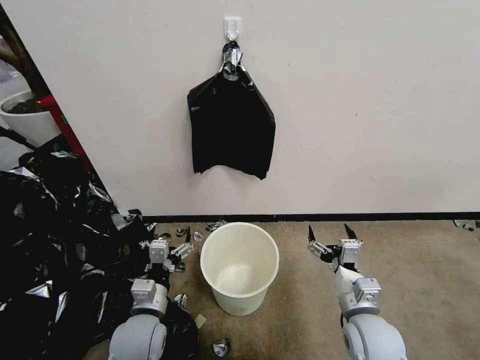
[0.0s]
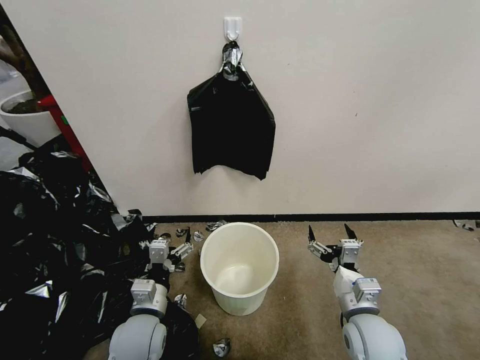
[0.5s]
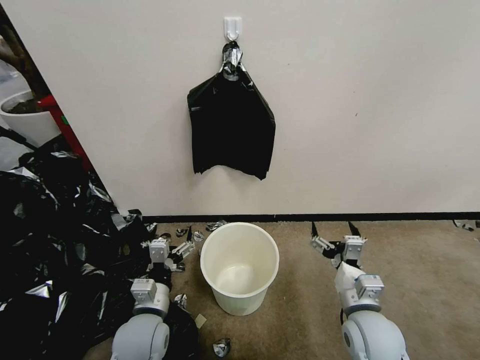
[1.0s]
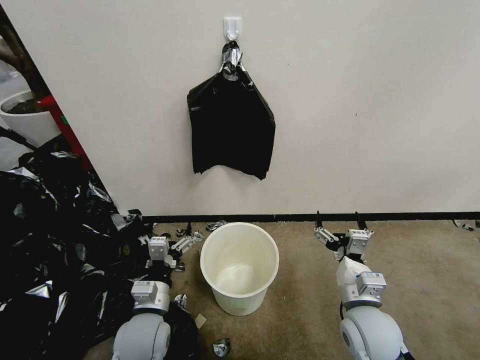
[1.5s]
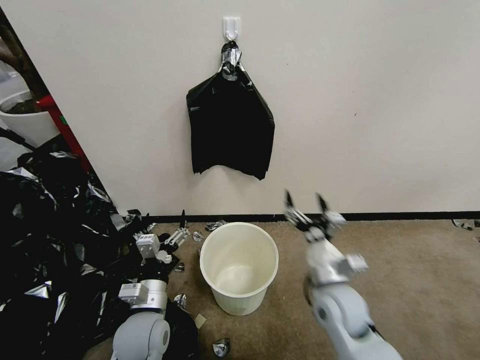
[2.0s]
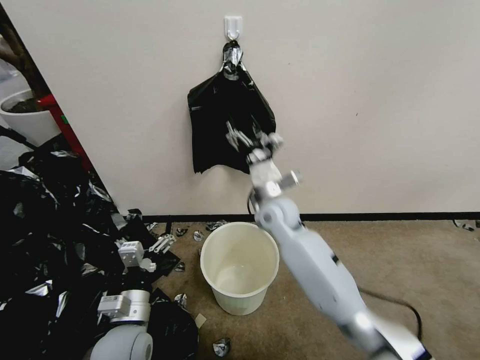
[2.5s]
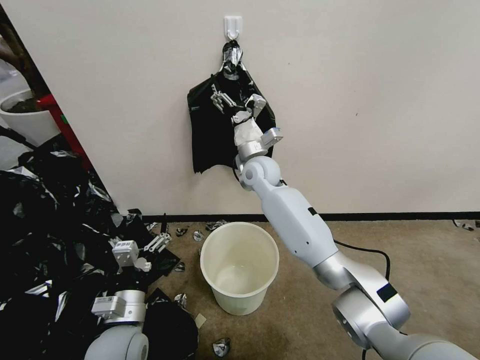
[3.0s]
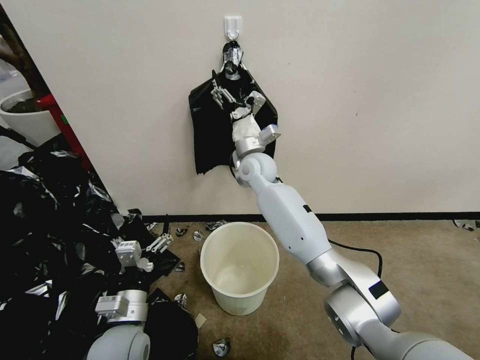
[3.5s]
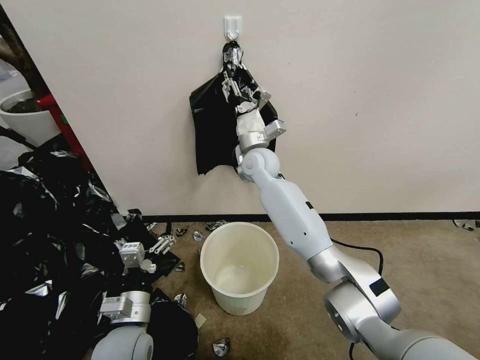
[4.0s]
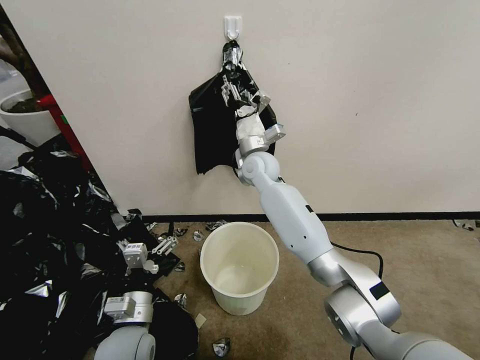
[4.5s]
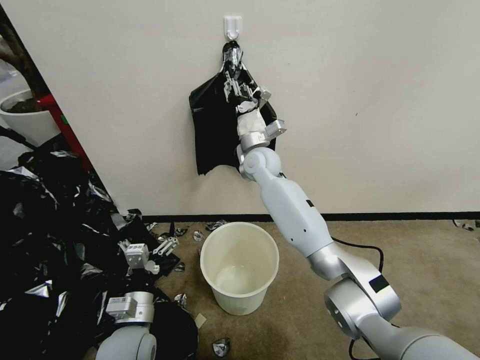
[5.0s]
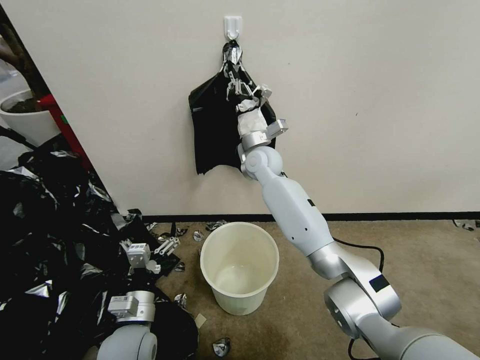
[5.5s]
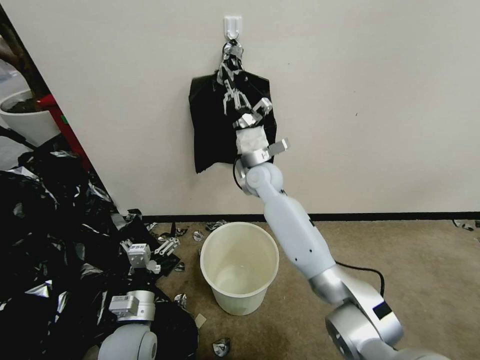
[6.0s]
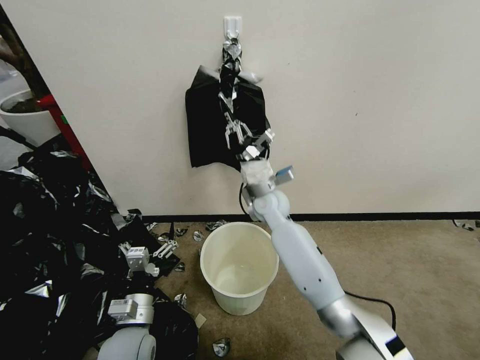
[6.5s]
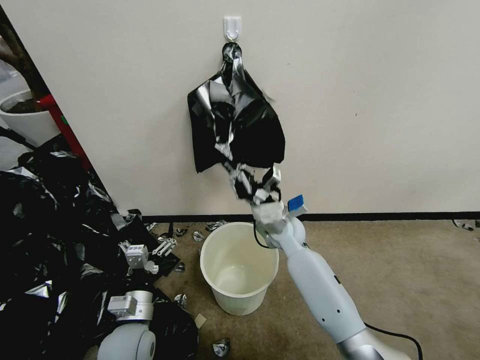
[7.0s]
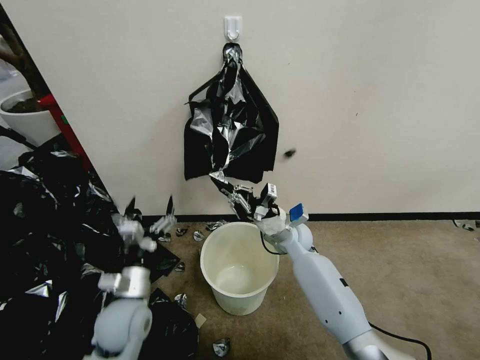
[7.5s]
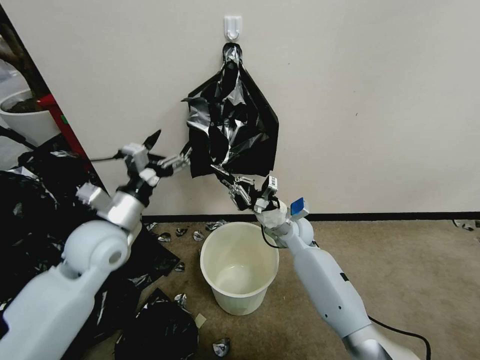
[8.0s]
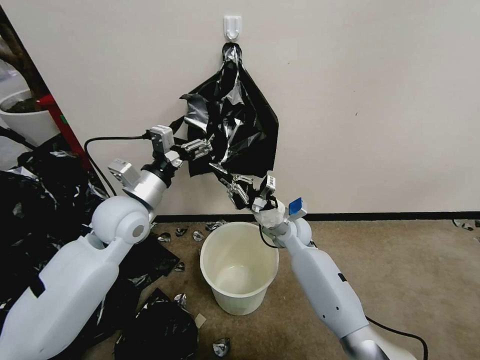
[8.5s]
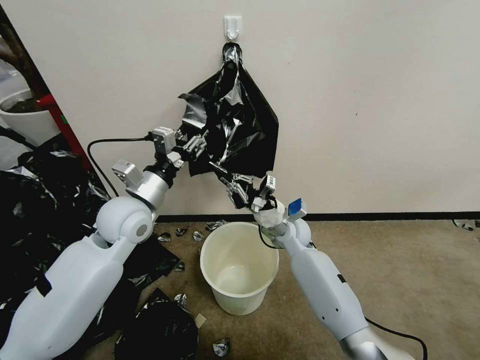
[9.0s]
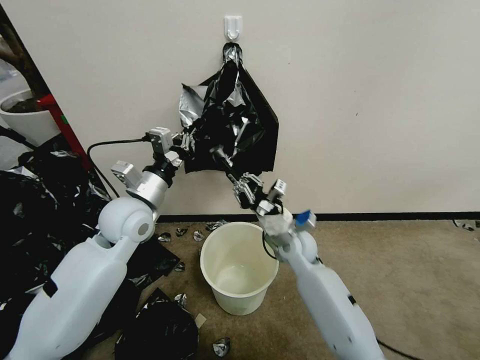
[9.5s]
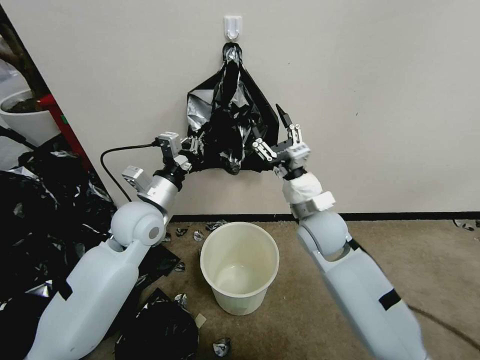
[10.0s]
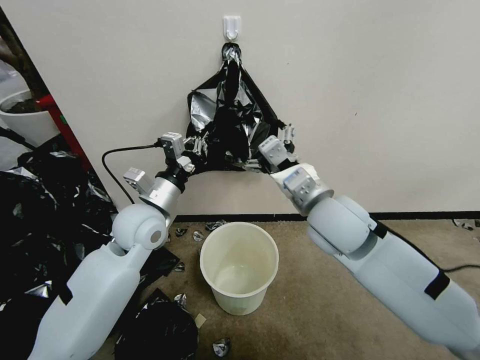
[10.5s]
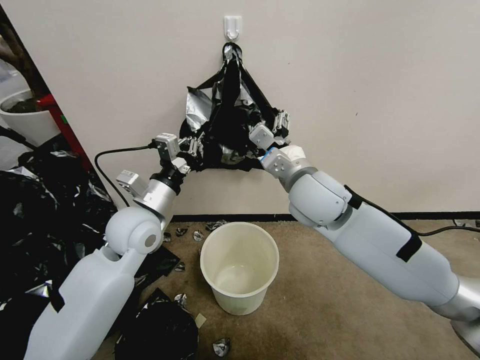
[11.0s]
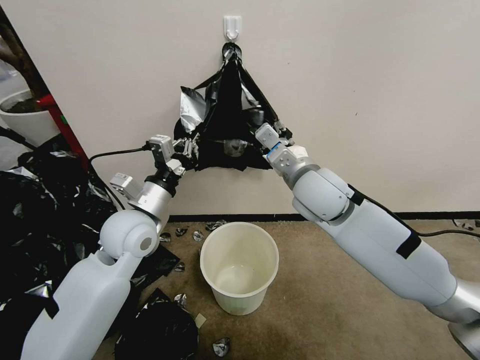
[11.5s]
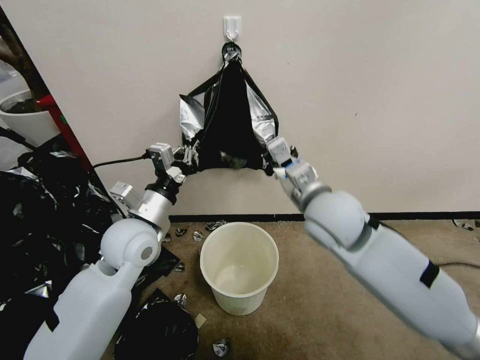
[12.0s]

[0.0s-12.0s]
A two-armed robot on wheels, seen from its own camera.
Task of the whole recording: Place a trash bag onto the trash bin.
2.0s to 4.0s: The right gripper heads forward, to the left and upward, covering about 35 cm, and closes up.
4.0s to 6.0s: The right gripper closes.
6.0s to 8.0s: The right gripper travels downward, to the right and backward by some 20 cm; the left gripper travels upward and forward by some 20 cm.
8.0s to 10.0s: The right gripper is displaced upward and backward by some 15 cm, and opens up. Meanwhile the left gripper heads to the right, covering roughly 5 cm, and closes its fingers.
10.0s to 12.0s: The right gripper is displaced upward by some 10 cm, and closes.

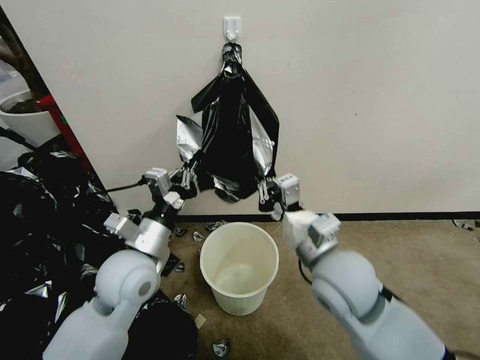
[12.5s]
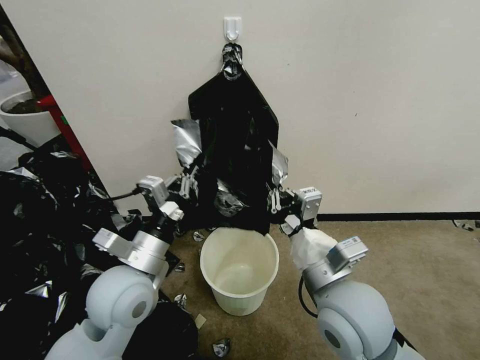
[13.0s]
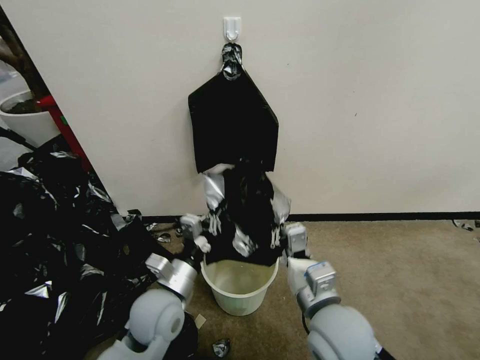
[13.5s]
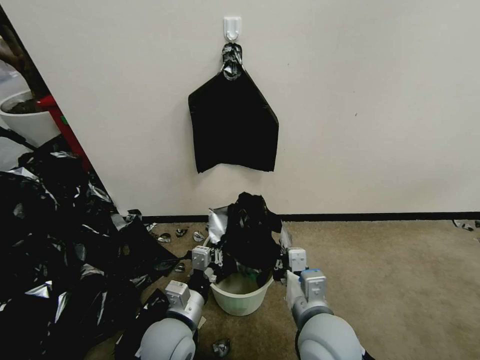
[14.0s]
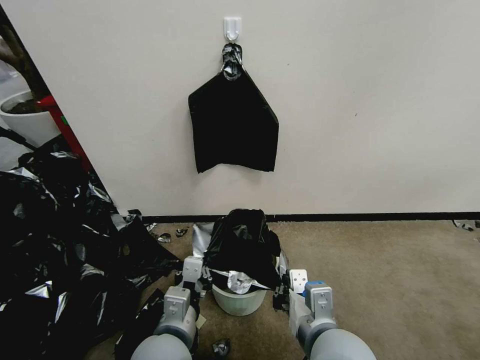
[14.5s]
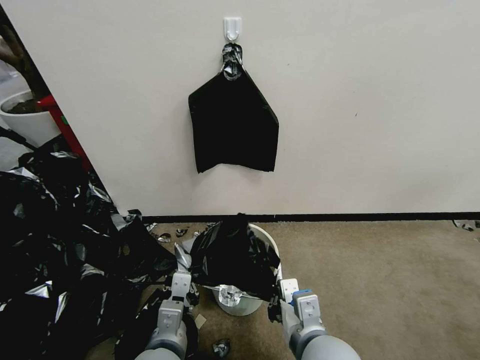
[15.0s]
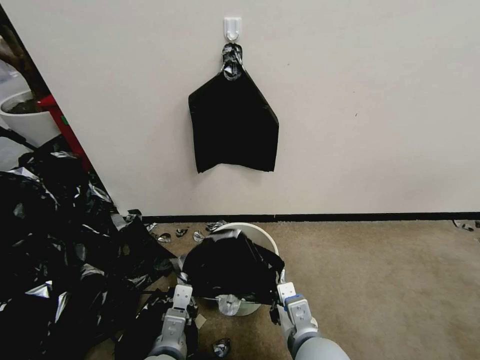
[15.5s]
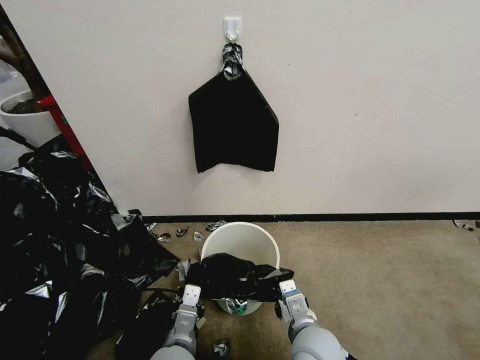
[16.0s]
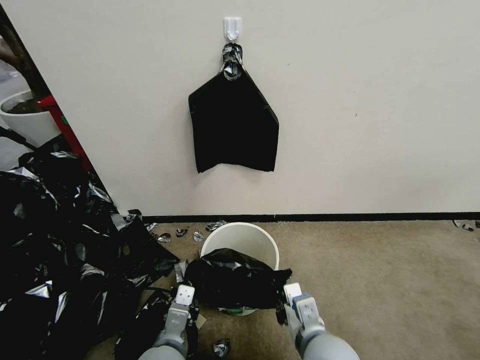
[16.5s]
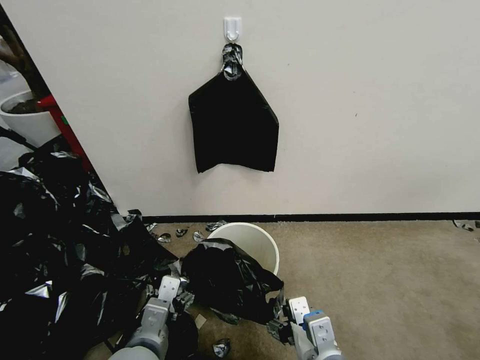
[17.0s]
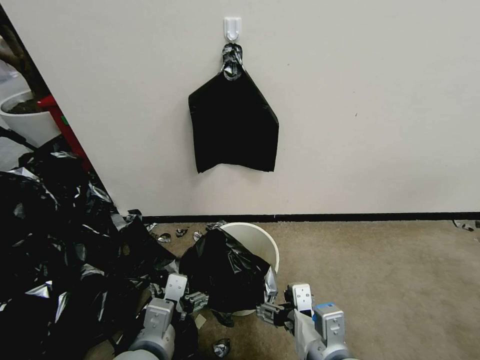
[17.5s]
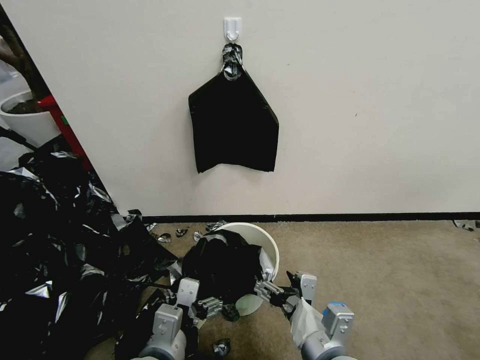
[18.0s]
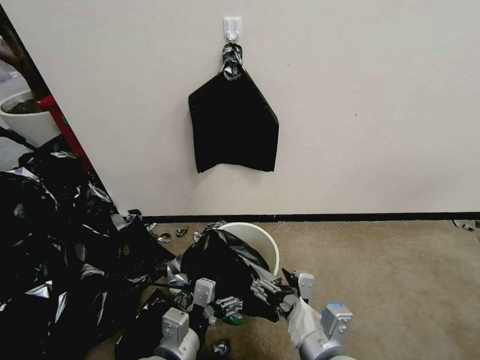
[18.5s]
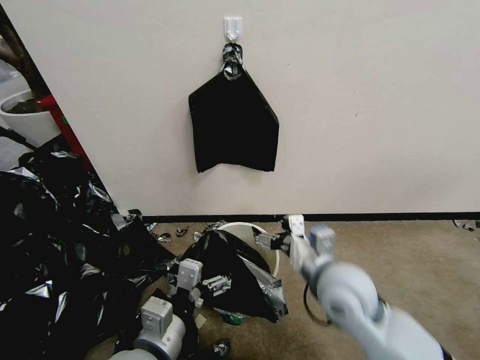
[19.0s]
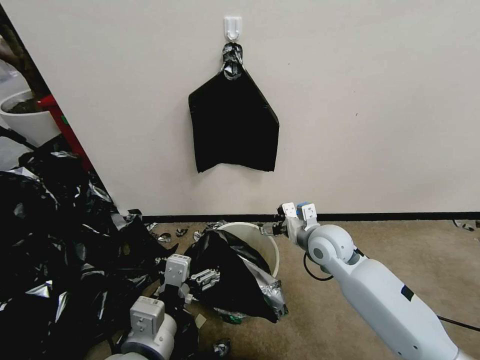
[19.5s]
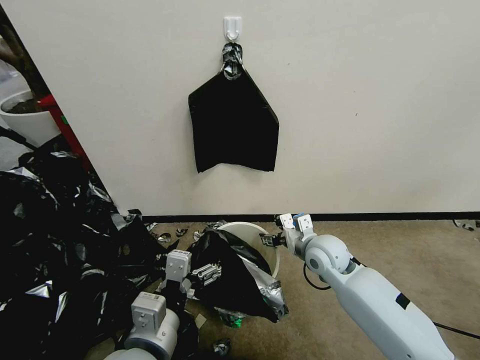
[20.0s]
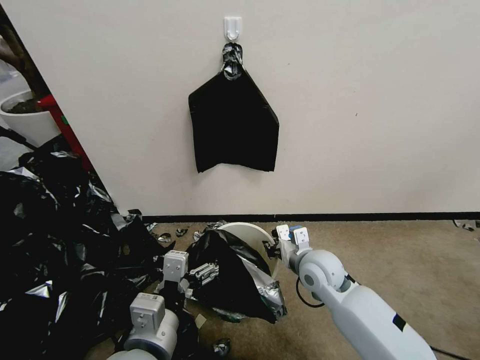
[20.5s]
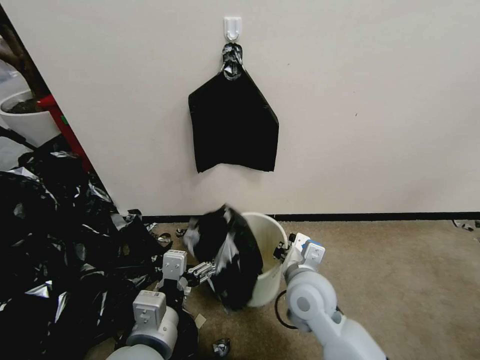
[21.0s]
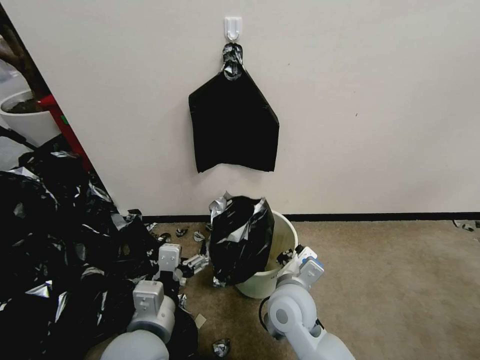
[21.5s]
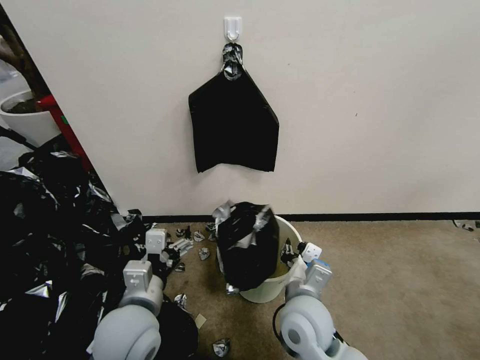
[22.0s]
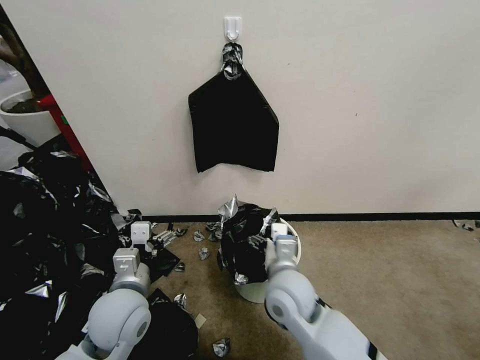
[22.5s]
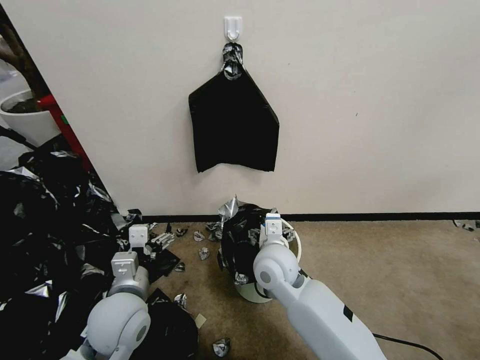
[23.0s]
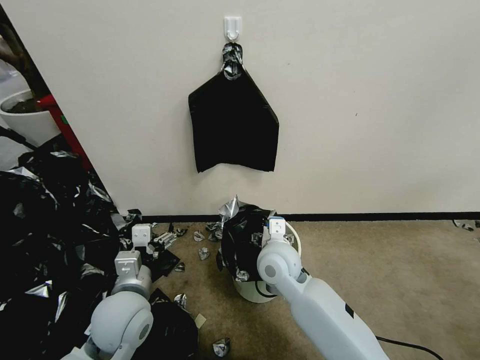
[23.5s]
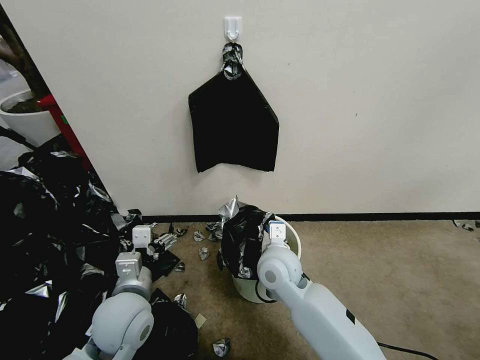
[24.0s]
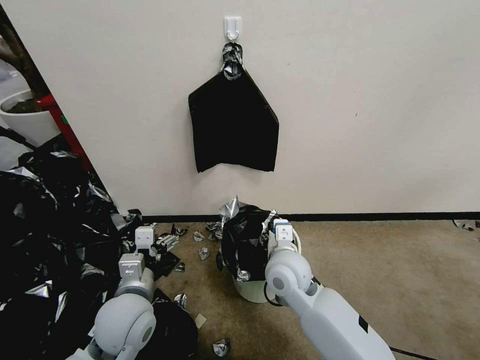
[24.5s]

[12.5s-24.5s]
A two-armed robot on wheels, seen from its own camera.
Task of the whole recording: Place a trash bag onto the trash bin.
12.5s to 14.5s: The right gripper shifts about 10 cm backward and downward. Meanwhile the left gripper goes approximately 15 cm backward, to the right and downward.
14.5s to 16.5s: Both grippers move downward, some 5 cm.
16.5s to 18.5s: The left gripper opens its fingers. The right gripper opens its fingers.
18.5s to 20.5s: The right gripper moves forward, some 20 cm, and closes. Meanwhile the left gripper goes some 10 cm upward.
20.5s to 22.5s: The right gripper goes approximately 10 cm to the left and backward, and opens, while the left gripper heads forward, to the left and downward, covering approximately 15 cm.
22.5s to 24.5s: The right gripper closes its fingers.

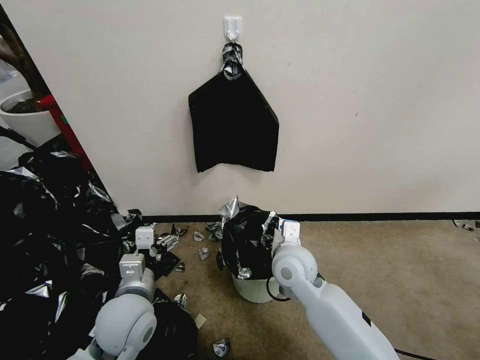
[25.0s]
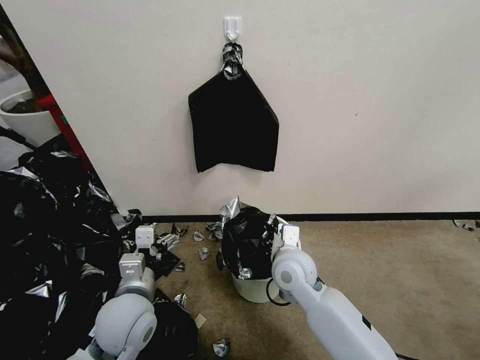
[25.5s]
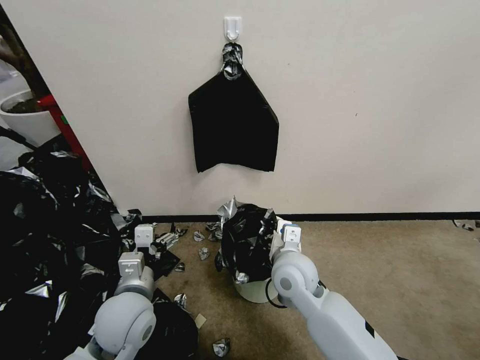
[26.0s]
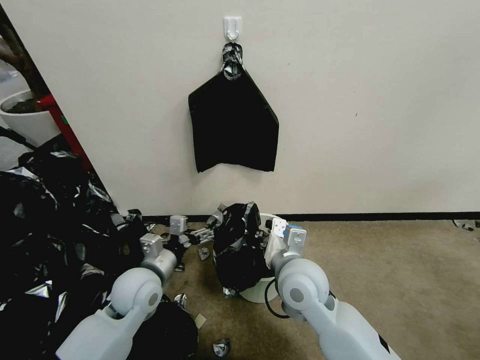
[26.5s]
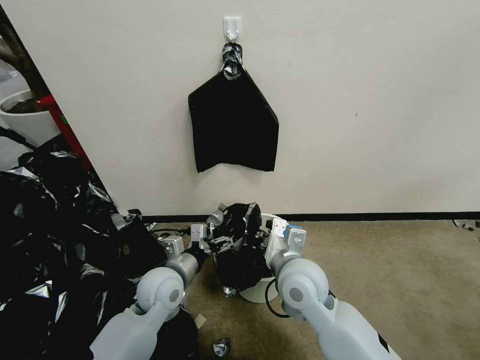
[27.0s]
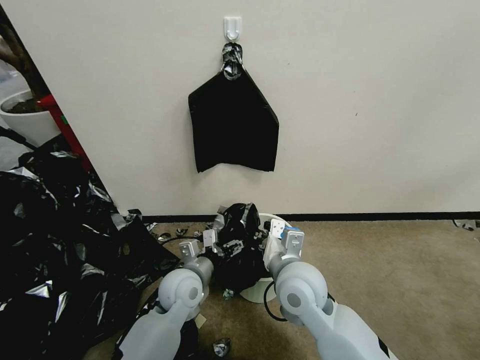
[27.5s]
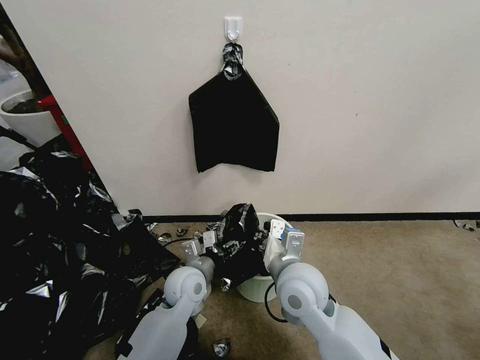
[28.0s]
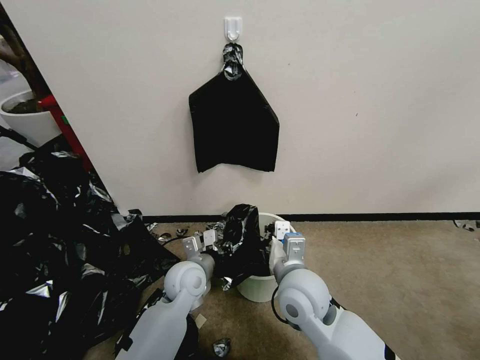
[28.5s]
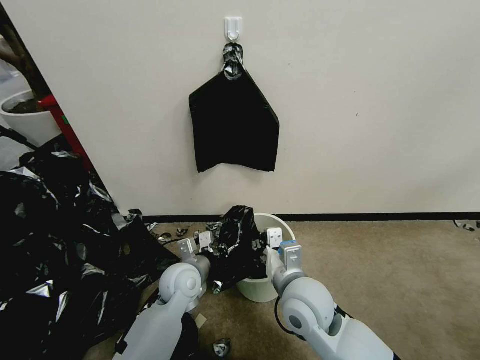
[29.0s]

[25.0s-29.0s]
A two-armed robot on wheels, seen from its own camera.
Task of the whole recording: Place a trash bag onto the trash bin.
25.0s to 27.0s: The right gripper shifts by some 5 cm, and closes its fingers, while the left gripper goes about 5 cm forward.
27.0s to 29.0s: The left gripper ends up some 5 cm from where it was, and closes up.
